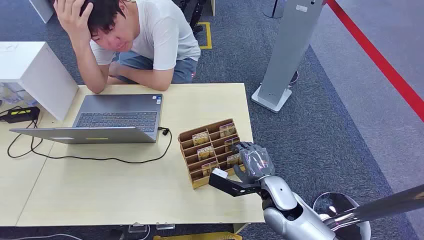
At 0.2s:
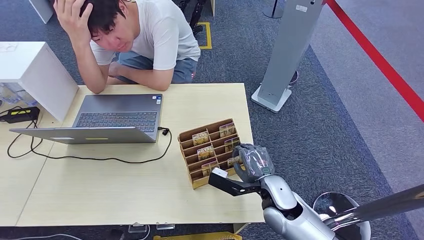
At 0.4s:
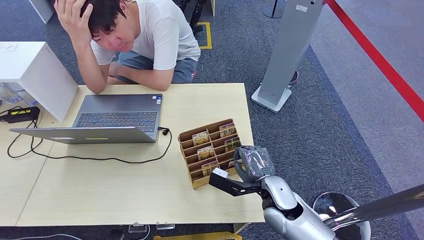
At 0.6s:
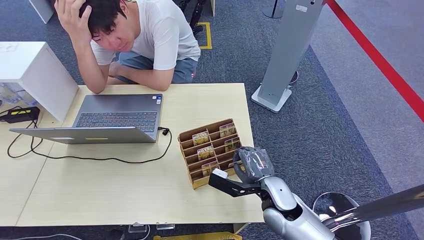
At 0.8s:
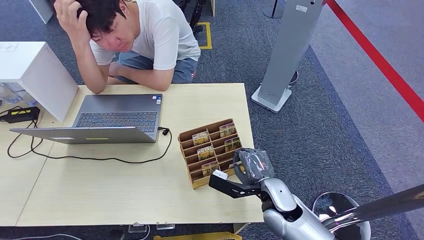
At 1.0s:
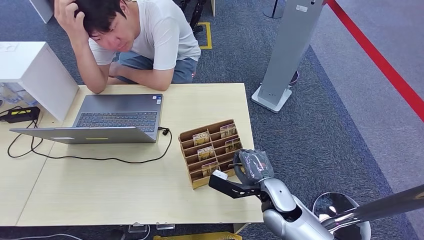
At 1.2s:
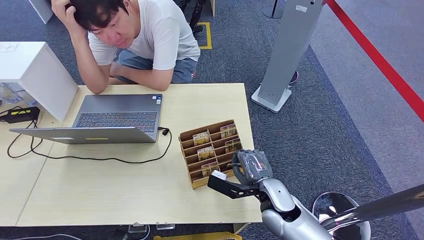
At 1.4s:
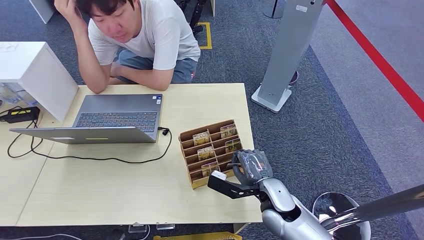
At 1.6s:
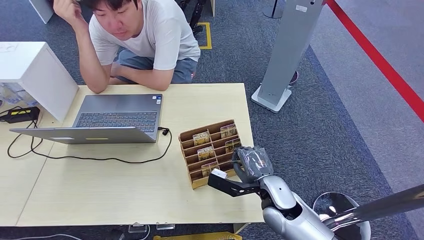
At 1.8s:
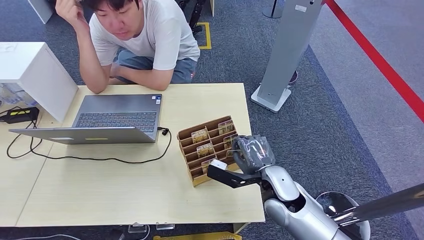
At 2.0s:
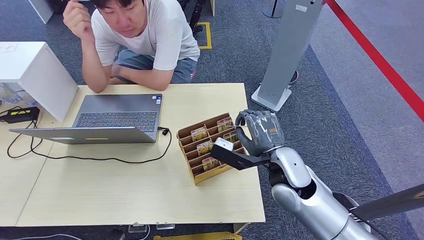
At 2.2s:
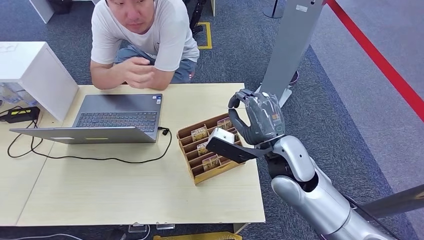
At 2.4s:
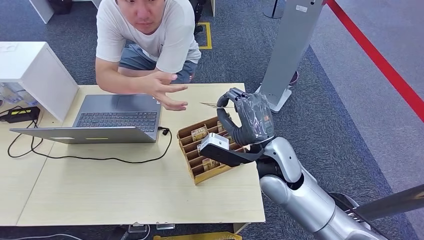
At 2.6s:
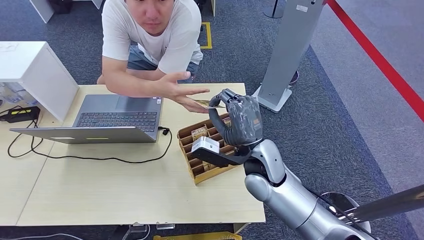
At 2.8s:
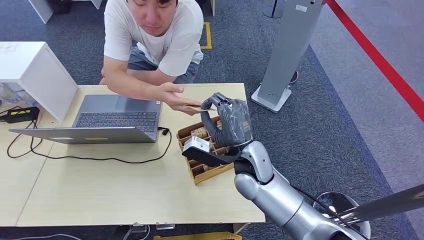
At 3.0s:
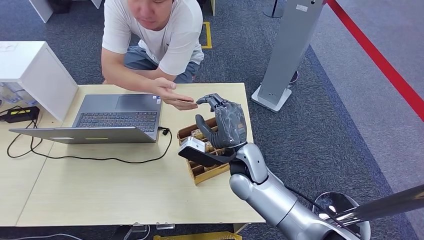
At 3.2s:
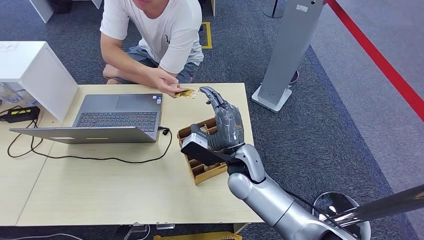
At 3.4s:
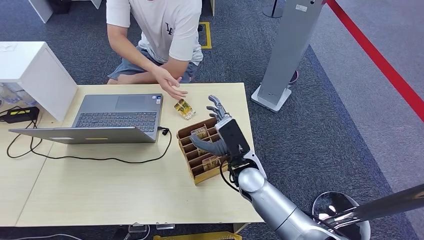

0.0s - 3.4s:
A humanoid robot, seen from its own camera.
Step, 0.0s - 2.0s: Pick up the key card from the card box.
Step, 2.2s - 3.4s: Hand the key card to the target.
1.6s - 3.4s: The right hand shifts approximately 10 cm to the left and forward, and moves some 15 cm upward and comes back.
